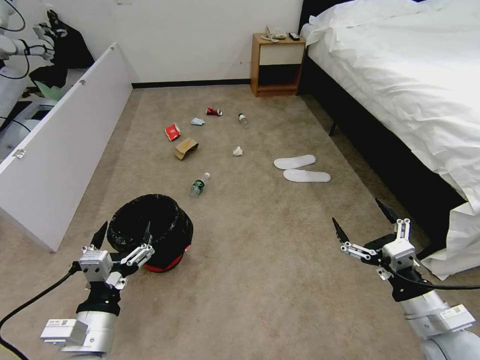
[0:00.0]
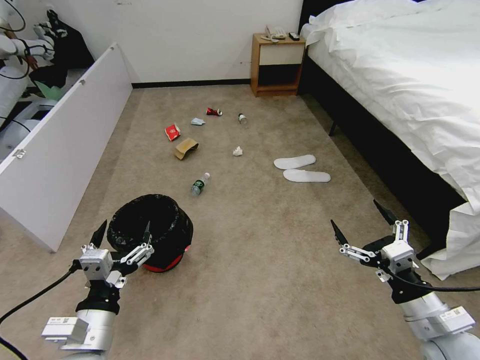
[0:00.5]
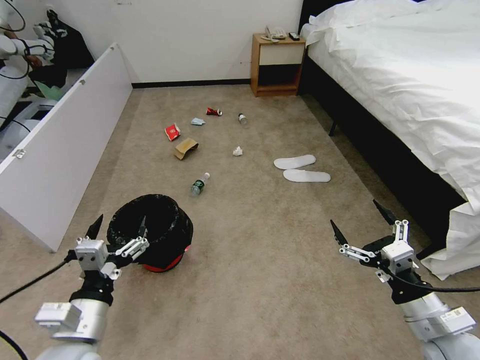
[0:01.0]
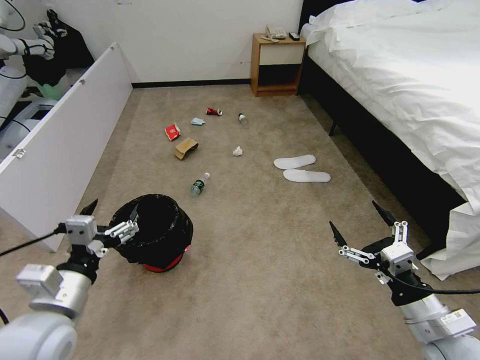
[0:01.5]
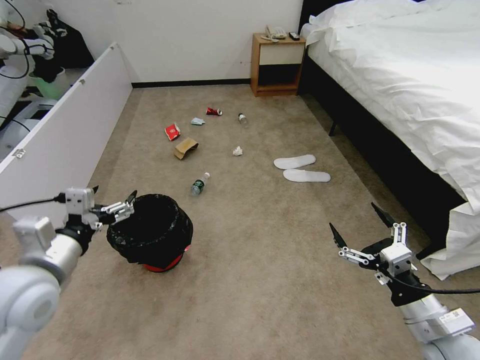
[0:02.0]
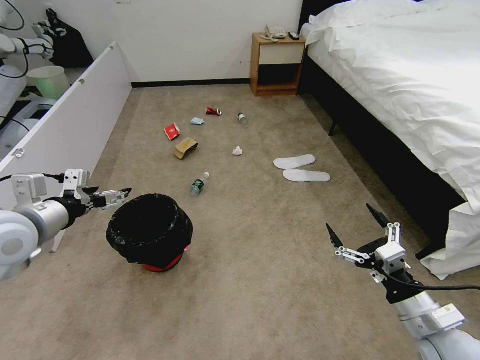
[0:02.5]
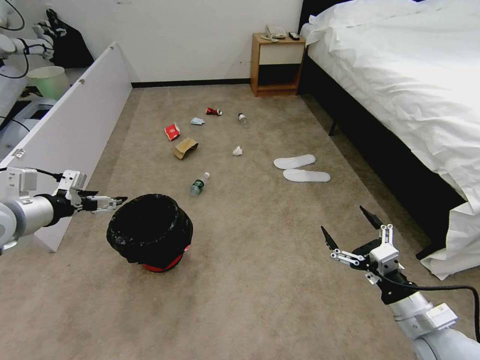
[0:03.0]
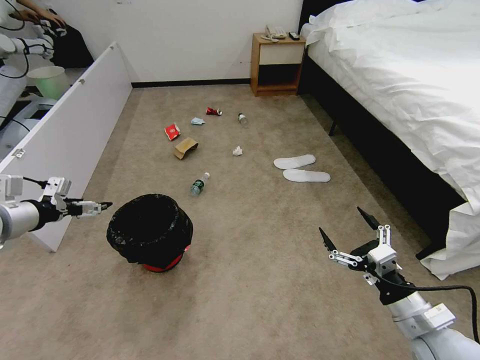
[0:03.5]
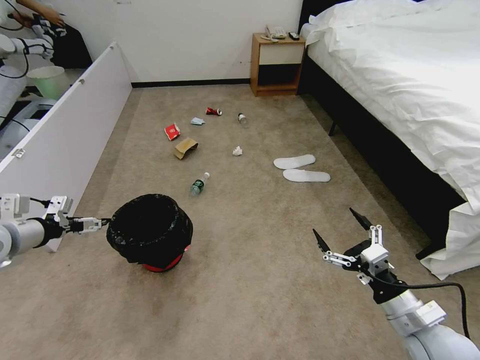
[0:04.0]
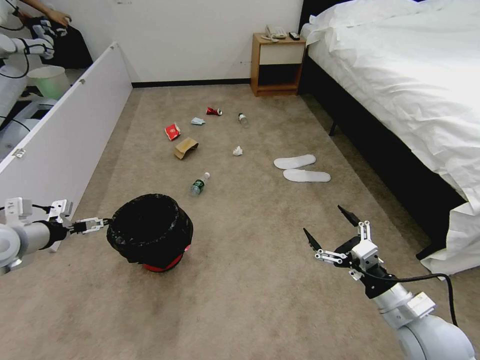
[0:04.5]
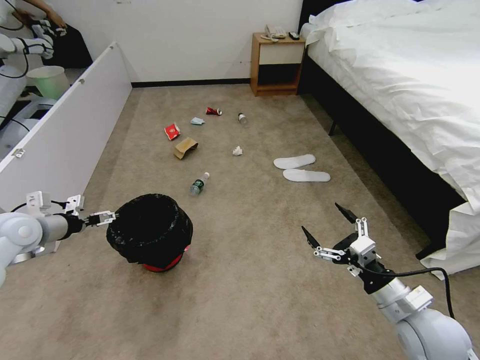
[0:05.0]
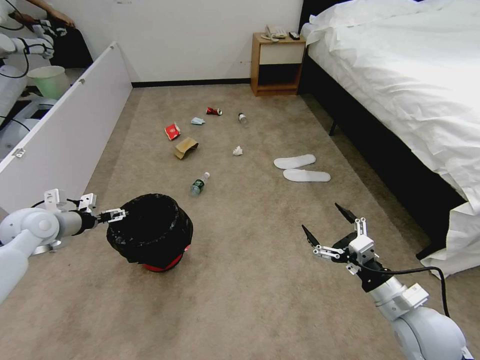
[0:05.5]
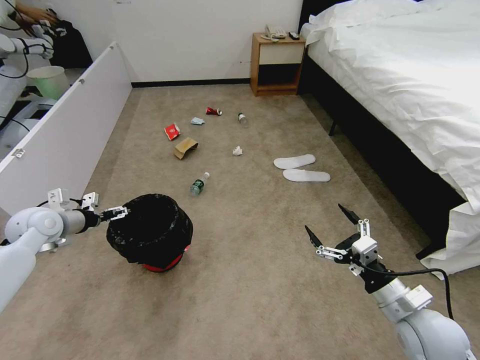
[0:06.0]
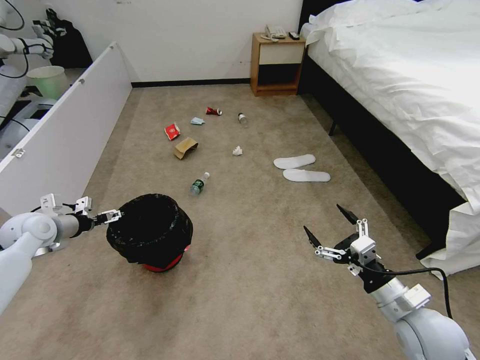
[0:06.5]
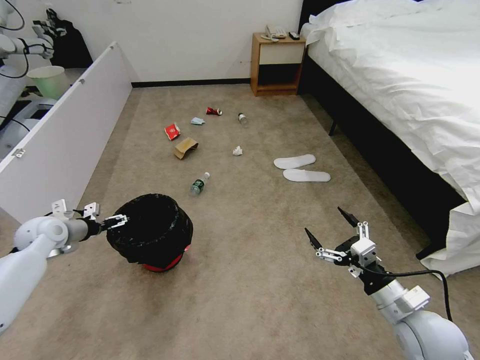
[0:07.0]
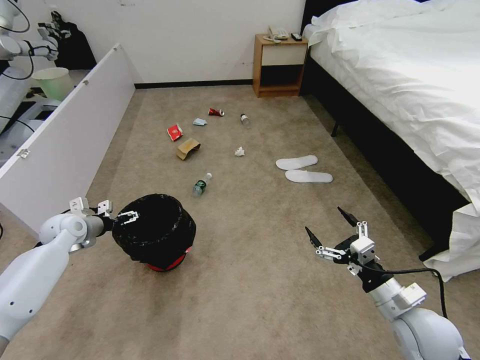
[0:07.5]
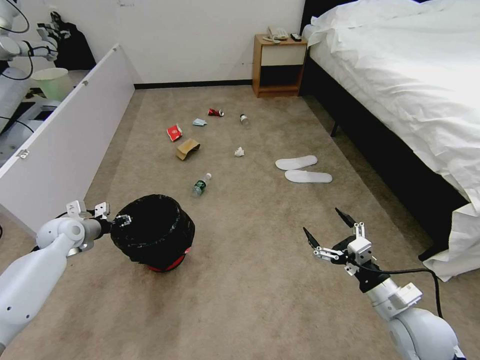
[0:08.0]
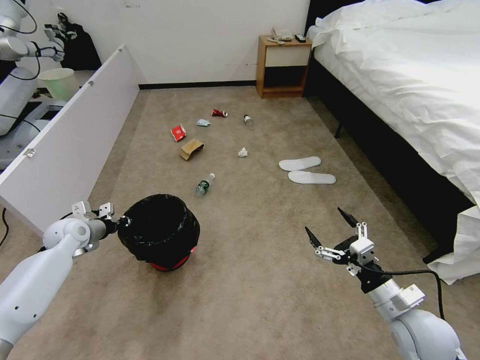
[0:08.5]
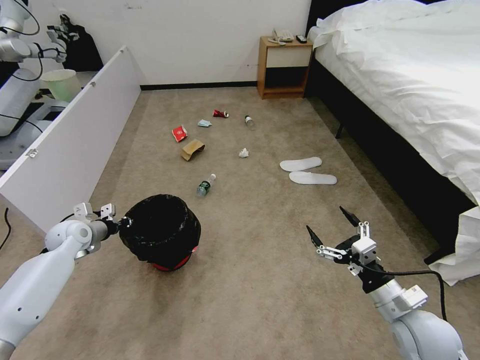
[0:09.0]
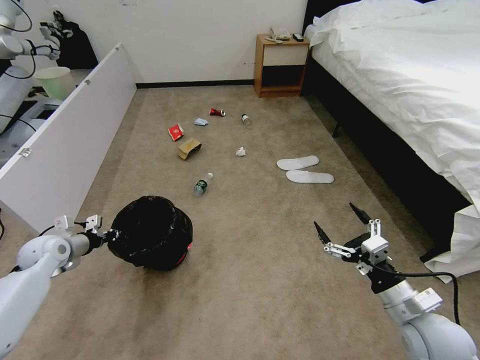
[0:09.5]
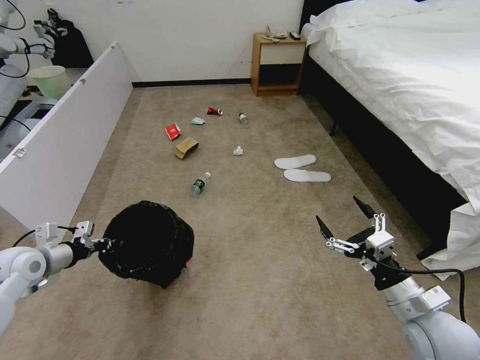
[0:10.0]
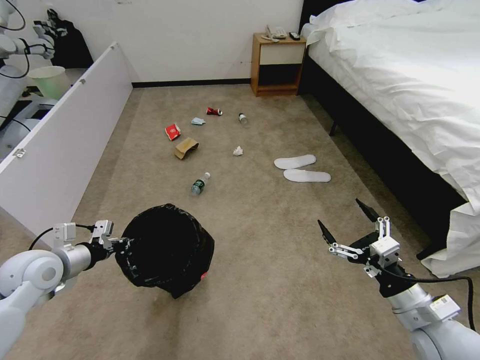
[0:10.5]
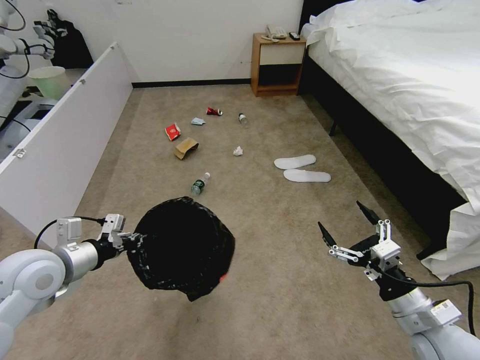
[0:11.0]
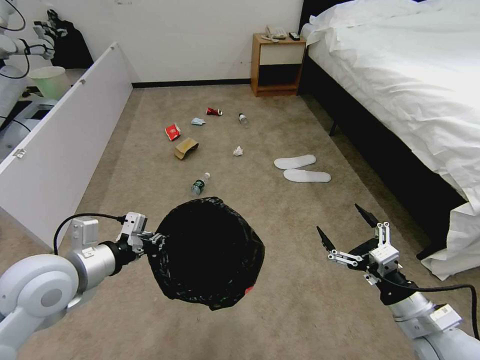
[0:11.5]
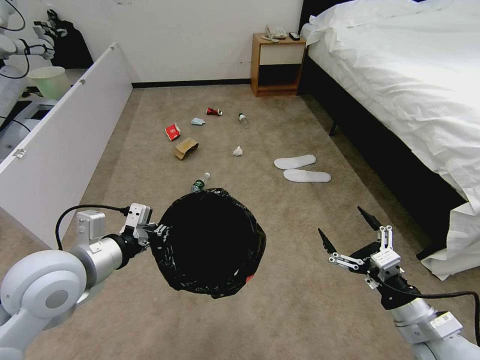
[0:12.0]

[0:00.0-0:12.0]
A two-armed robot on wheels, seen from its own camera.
Task of the whole recording: Pick up the trash bin and place the garbage on the floor into it.
0:02.0 to 0:04.0: The left gripper shifts roughly 20 cm to the left and forward.
0:04.0 to 0:06.0: The left gripper travels forward and downward by about 10 cm.
0:06.0 to 0:08.0: The left gripper heads downward, covering approximately 10 cm, and closes up.
0:08.0 to 0:10.0: The left gripper heads backward, covering about 10 cm, and closes.
0:10.0 to 0:12.0: The left gripper travels to the right, upward and backward by roughly 25 cm.

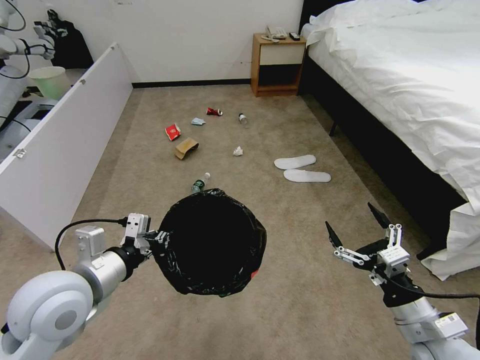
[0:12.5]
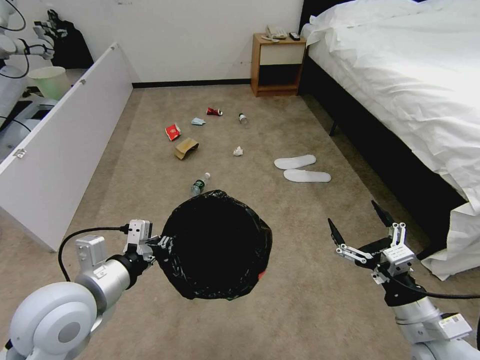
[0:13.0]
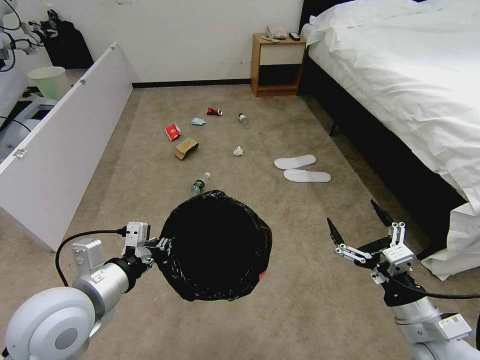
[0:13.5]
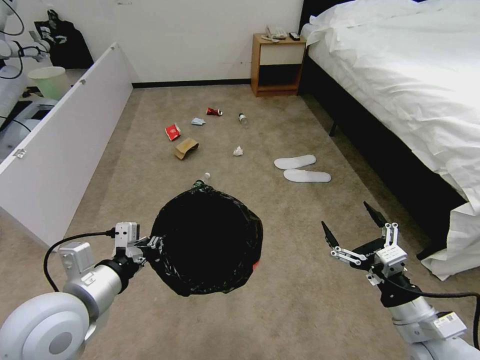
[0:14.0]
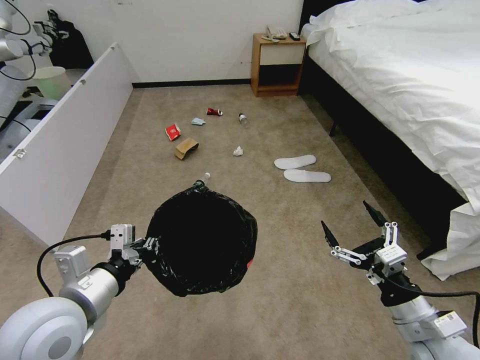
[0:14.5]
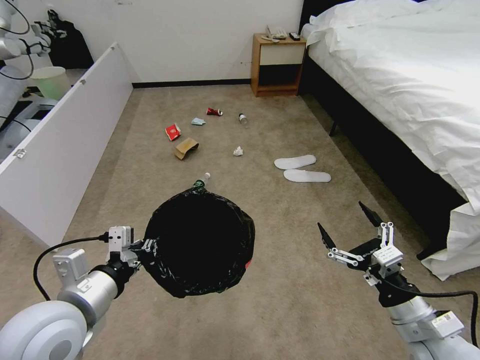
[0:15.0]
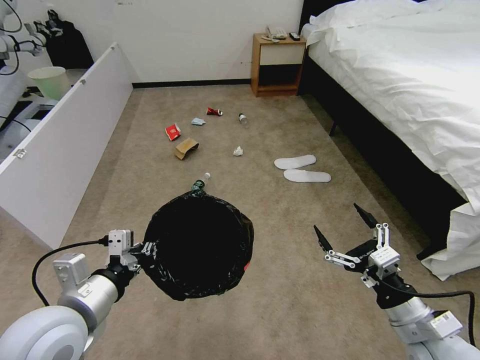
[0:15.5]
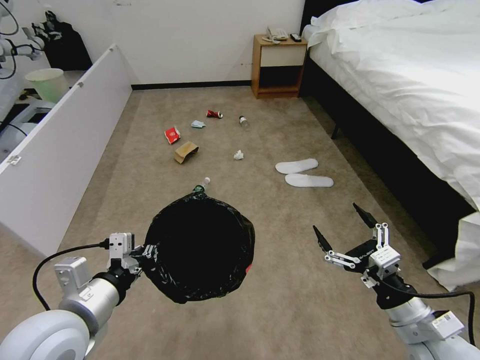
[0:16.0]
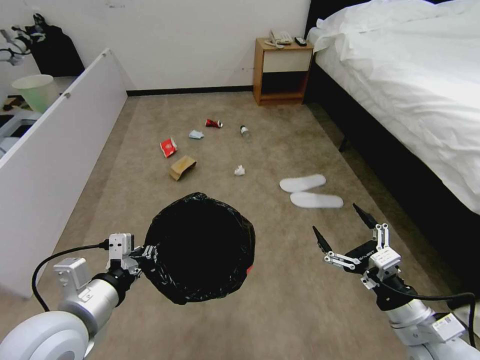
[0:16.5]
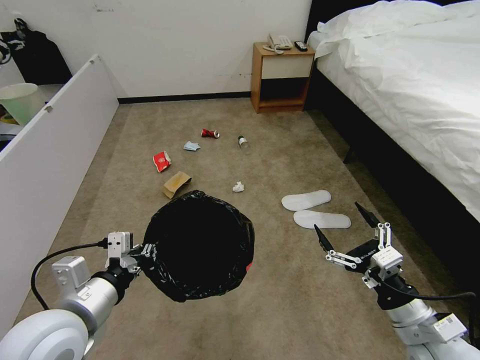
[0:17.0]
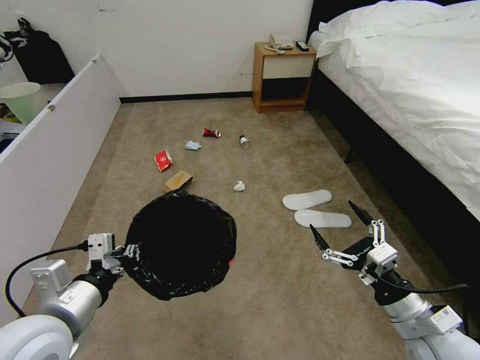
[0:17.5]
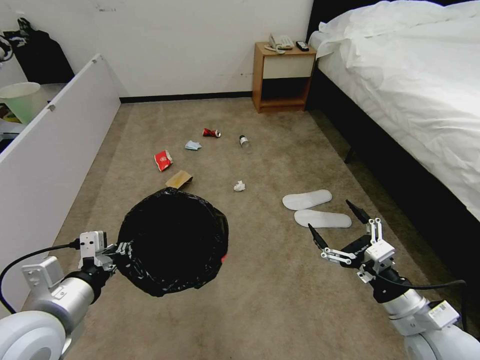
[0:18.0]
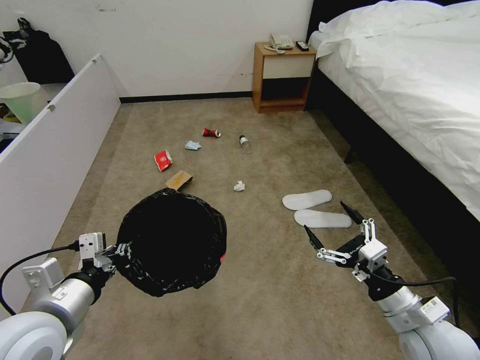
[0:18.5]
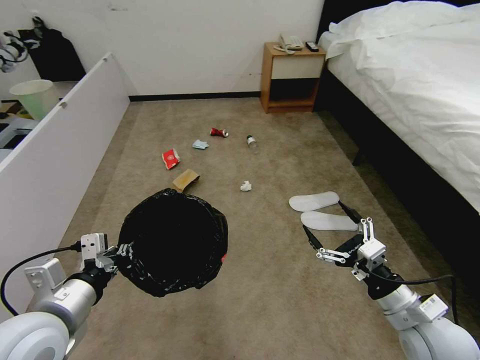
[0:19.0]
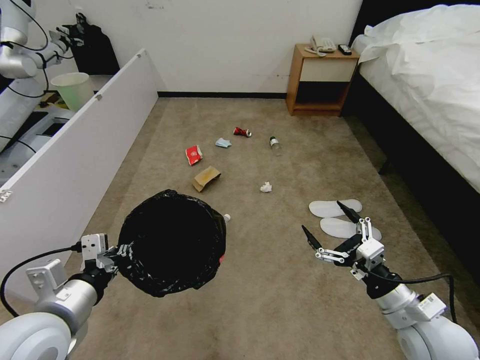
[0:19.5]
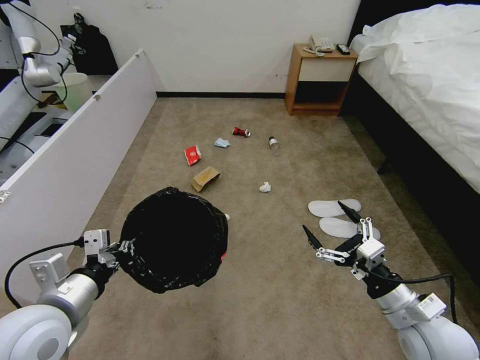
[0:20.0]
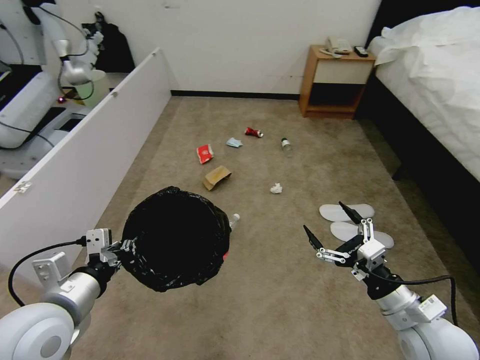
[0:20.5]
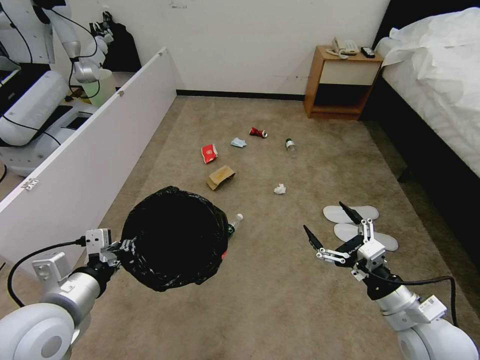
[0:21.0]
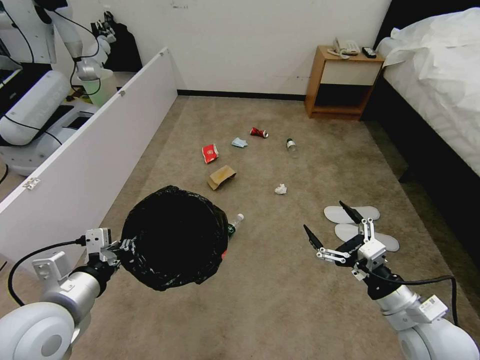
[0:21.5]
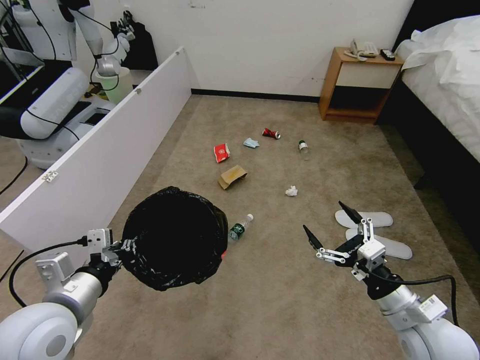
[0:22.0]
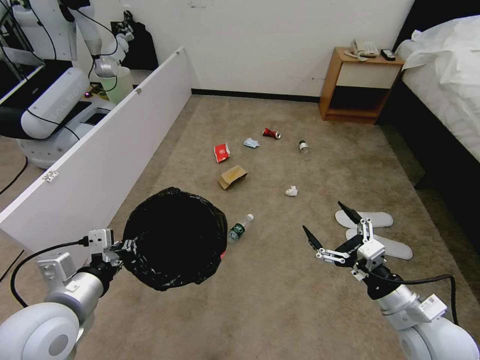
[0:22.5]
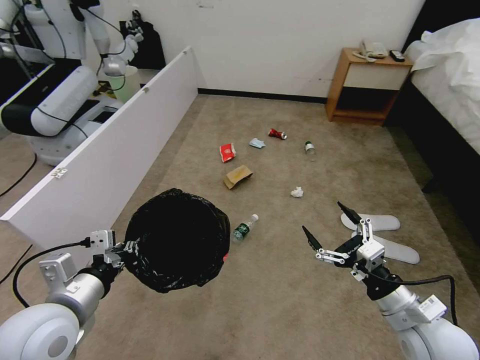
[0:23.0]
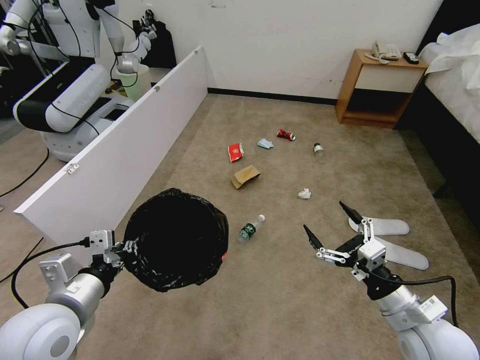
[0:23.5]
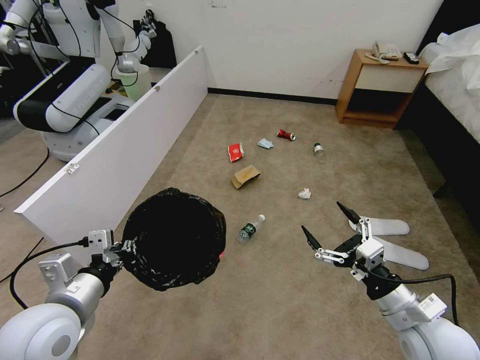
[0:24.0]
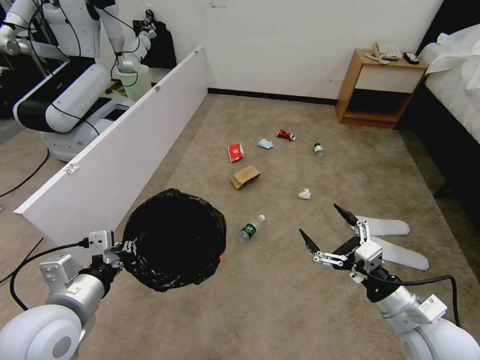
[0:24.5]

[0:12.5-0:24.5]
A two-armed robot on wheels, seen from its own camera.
Task of the whole recording: Pick up the trash bin and place the garbage on the floor into it.
0:12.5 to 0:14.5: There are only small adjustments of the grippers.

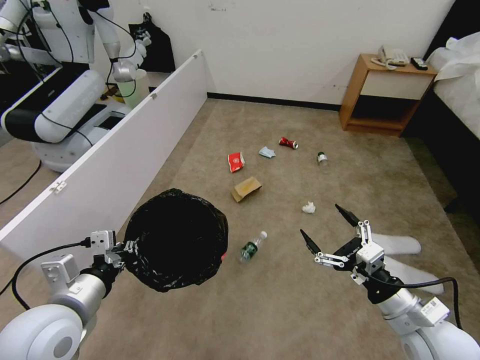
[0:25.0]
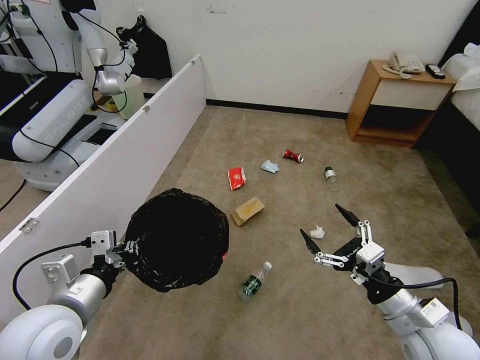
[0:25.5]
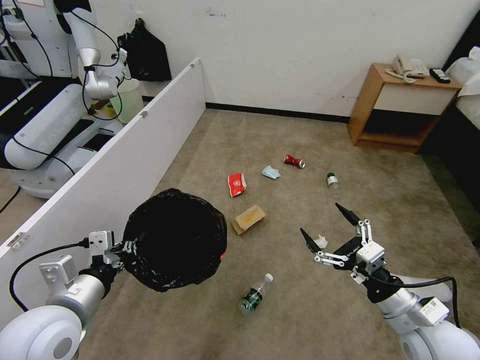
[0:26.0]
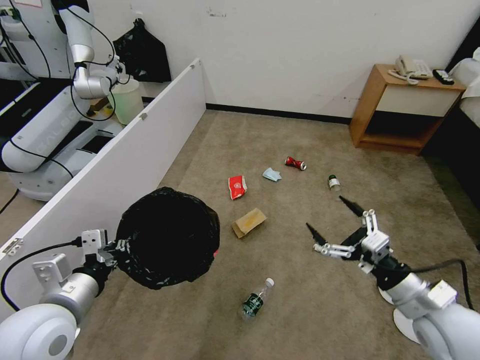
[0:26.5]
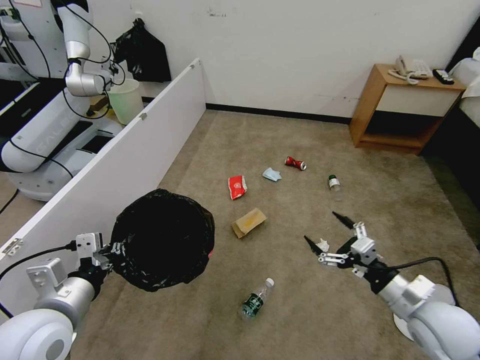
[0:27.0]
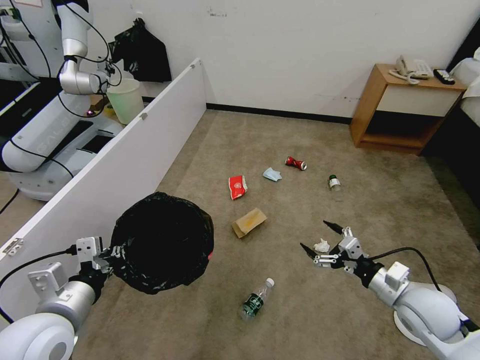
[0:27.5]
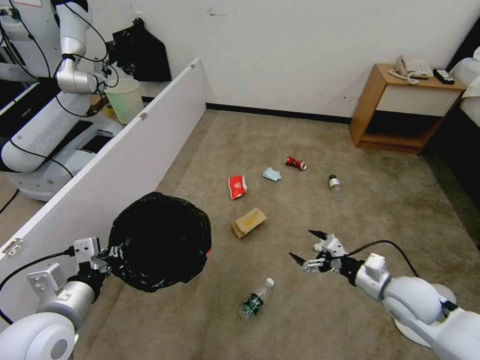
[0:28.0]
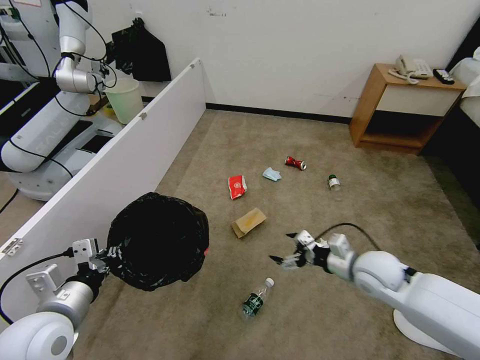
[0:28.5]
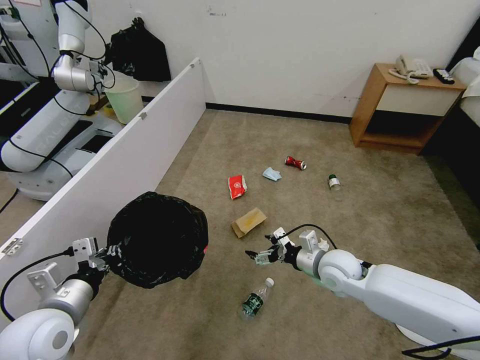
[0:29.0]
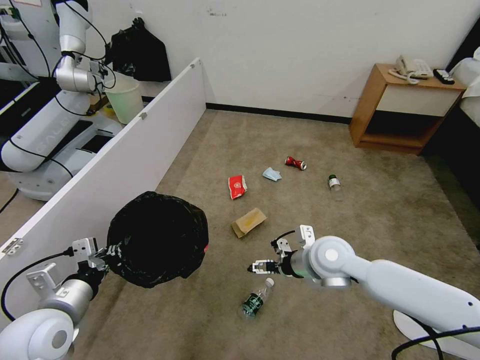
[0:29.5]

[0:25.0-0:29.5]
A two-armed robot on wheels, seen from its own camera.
Task of the whole recording: Pick up the trash bin and place the garbage on the floor into it.
0:27.0 to 0:29.5: The right gripper travels forward and to the left by roughly 20 cm, while the left gripper changes place by some 5 cm.
